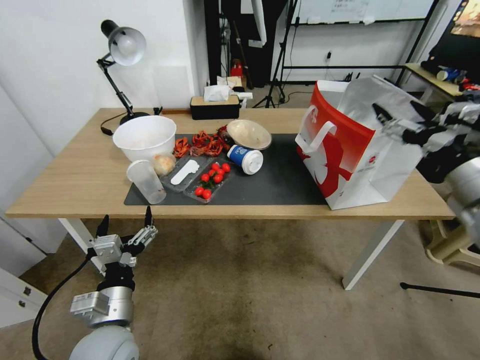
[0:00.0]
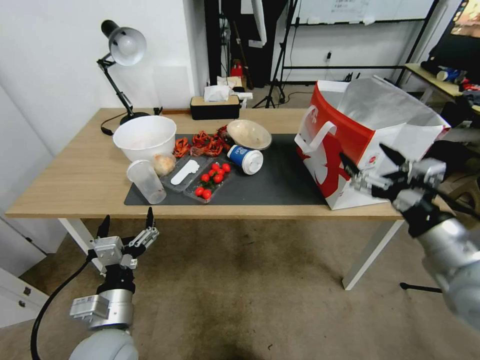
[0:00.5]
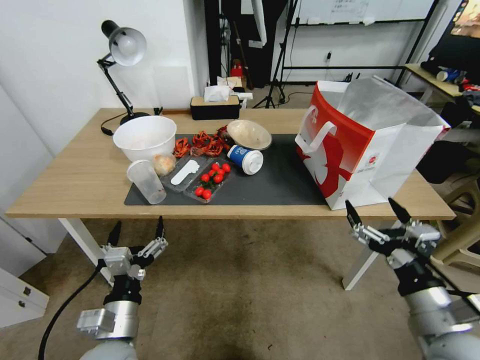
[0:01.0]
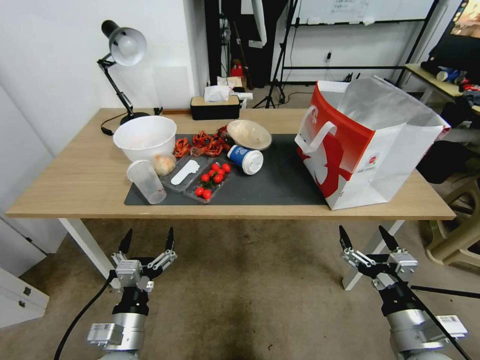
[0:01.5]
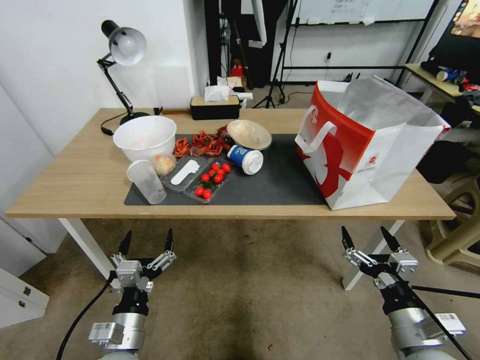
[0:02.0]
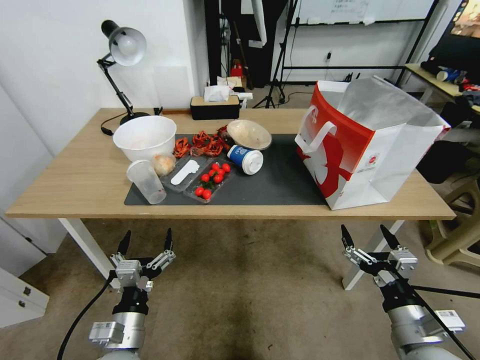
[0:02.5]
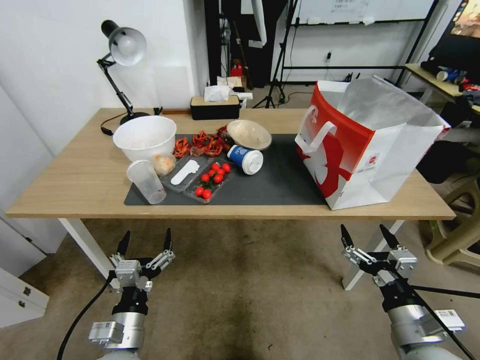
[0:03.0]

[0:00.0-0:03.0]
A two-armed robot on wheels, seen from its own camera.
Task of the whole recording: Pick up the food delivery bag from the floor and place it on the table.
0:00.0 to 0:01.5: The left gripper moves approximately 5 cm. The right gripper travels downward and backward by approximately 25 cm.
0:01.5 to 0:03.0: The grippers make only small movements.
